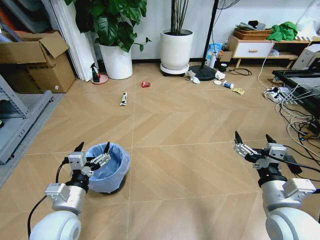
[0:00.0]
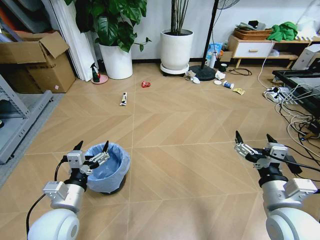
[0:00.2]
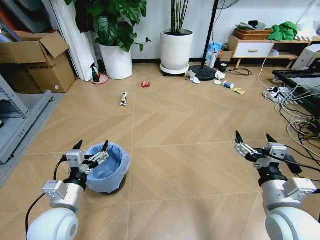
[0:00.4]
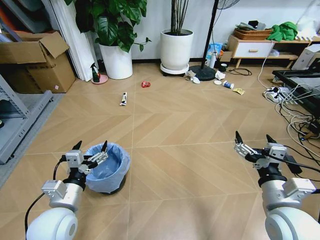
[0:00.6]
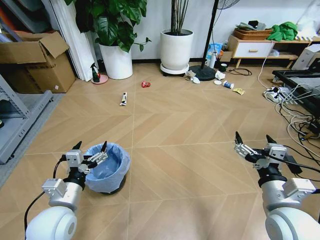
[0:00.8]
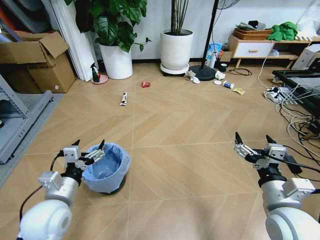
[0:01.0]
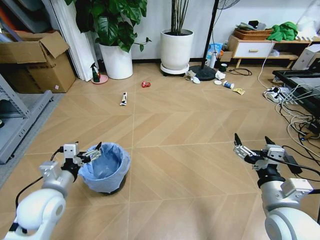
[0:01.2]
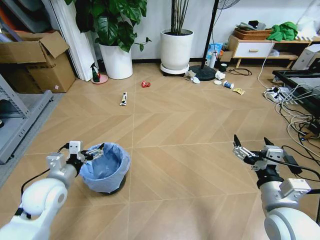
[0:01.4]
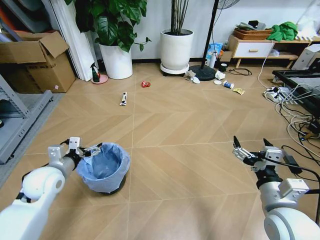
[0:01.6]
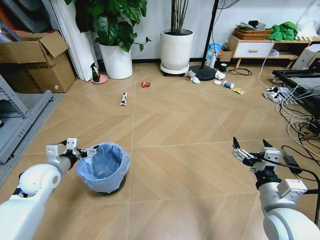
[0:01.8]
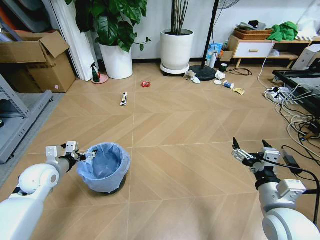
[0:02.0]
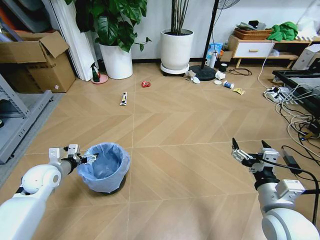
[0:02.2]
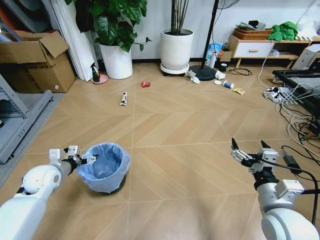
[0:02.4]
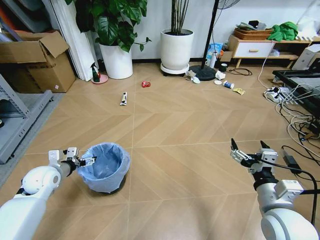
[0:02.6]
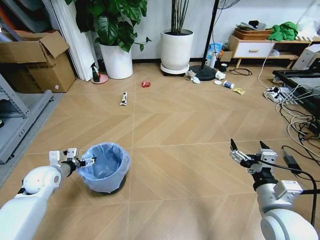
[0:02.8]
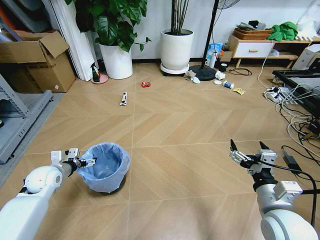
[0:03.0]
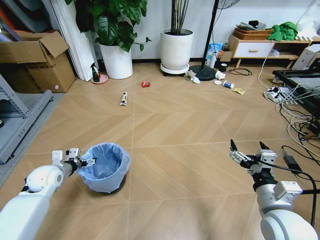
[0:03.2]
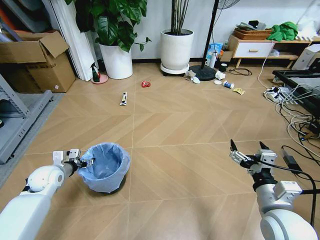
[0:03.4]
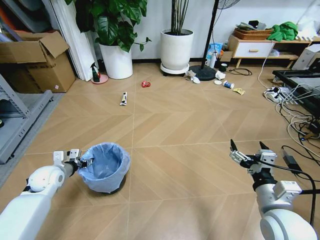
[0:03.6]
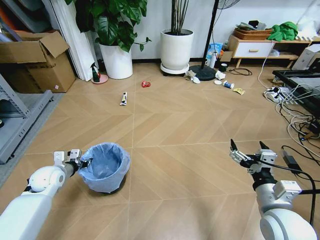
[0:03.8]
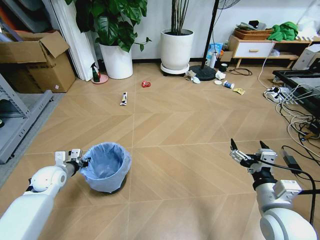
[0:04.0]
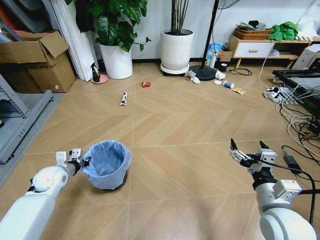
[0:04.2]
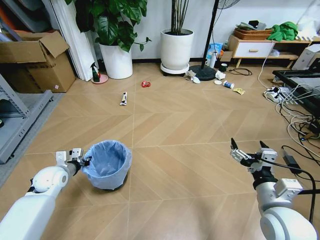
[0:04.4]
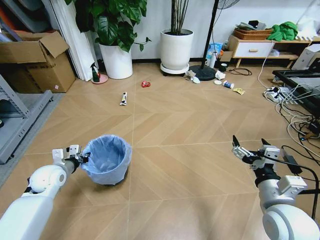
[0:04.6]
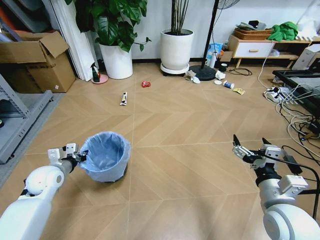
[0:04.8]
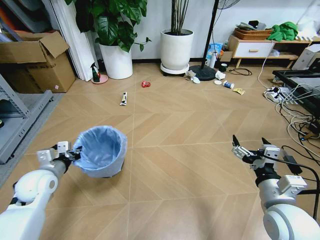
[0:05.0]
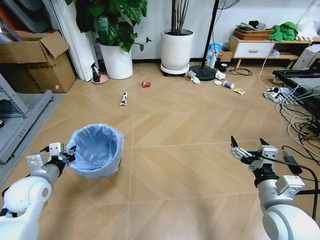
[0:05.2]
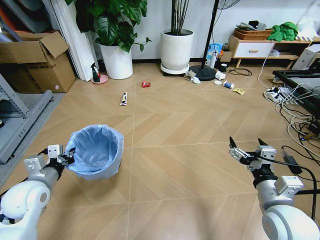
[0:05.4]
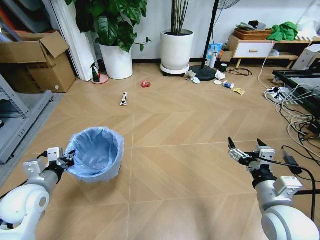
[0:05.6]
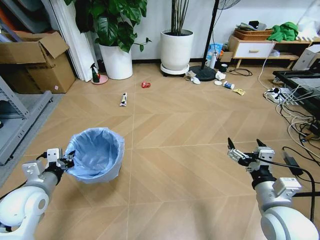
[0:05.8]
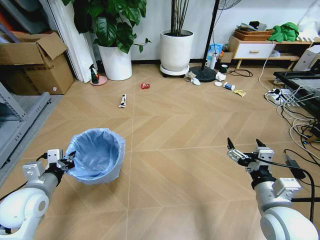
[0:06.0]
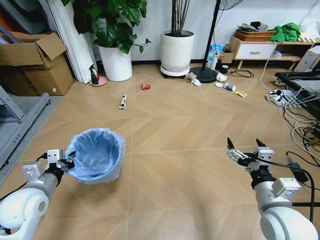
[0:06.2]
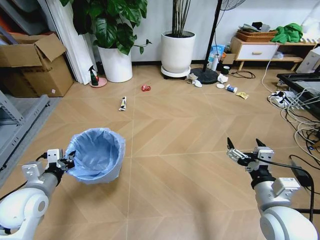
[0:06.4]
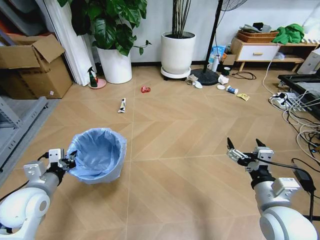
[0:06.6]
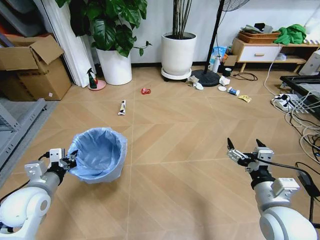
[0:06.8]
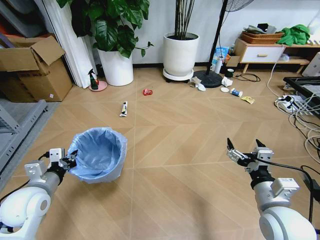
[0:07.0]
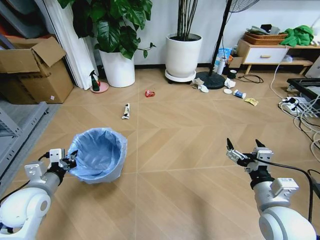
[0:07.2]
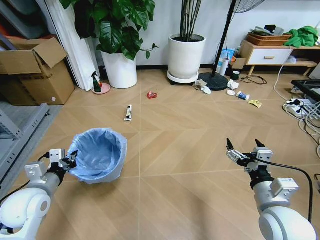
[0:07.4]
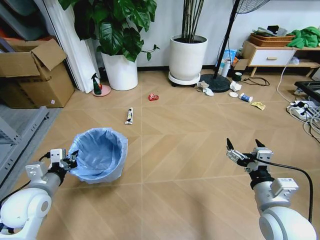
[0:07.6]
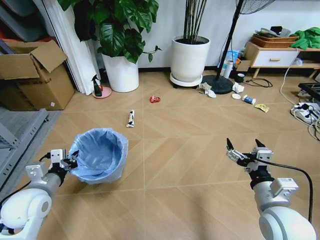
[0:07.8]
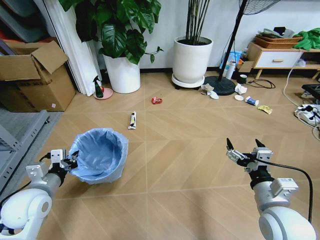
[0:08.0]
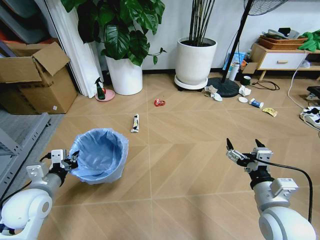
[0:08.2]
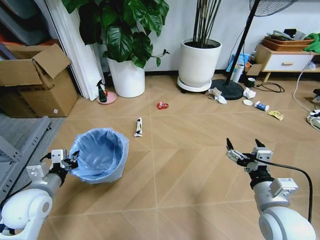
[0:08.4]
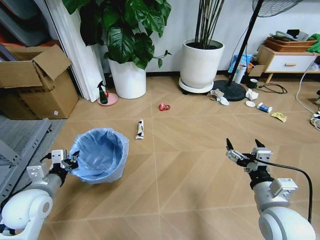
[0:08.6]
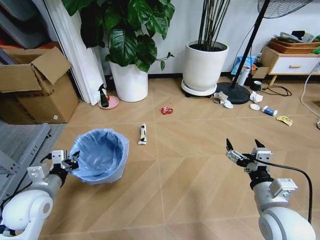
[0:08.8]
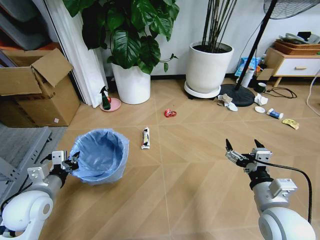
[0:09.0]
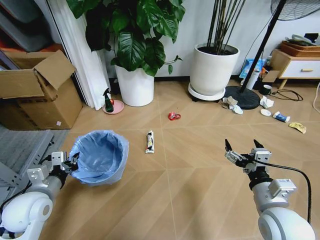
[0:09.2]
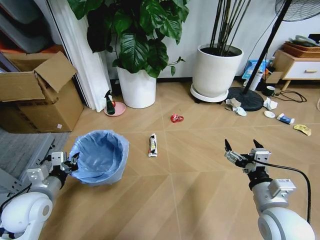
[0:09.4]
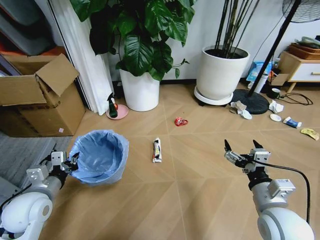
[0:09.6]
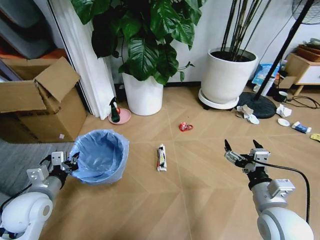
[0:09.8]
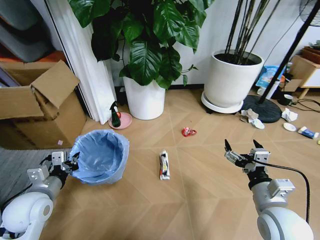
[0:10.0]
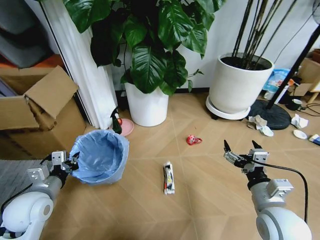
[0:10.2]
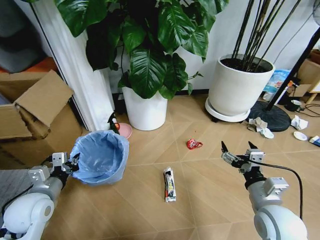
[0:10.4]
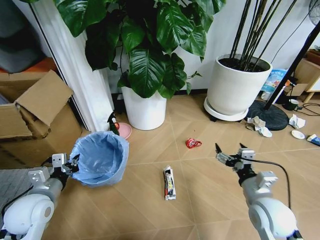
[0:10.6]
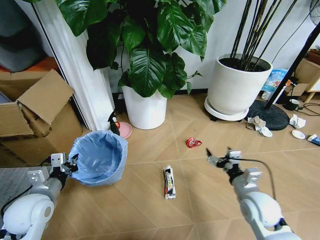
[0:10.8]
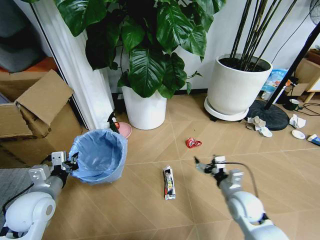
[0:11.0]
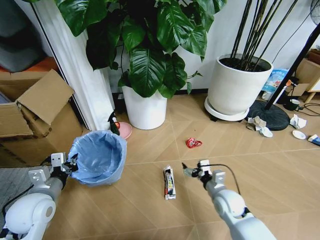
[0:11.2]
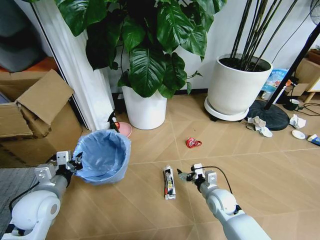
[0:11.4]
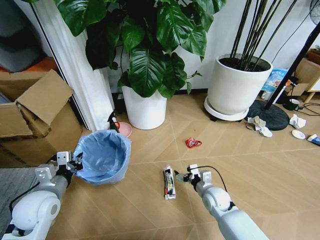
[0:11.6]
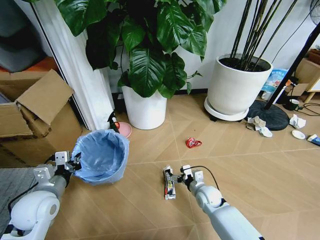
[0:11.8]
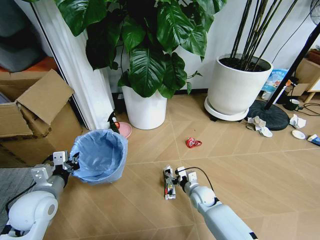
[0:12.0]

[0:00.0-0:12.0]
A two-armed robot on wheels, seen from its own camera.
Task of the whole recording: Pick up the trash bin and place the garbage on the floor into it.
0:01.6 to 0:03.0: The left gripper is displaced to the left, downward and forward by approximately 10 cm.
0:03.0 to 0:04.4: The left gripper closes.
0:04.4 to 0:06.0: The left gripper heads backward and upward, covering roughly 15 cm.
0:10.4 to 0:12.0: The right gripper shifts roughly 30 cm downward, forward and to the left.

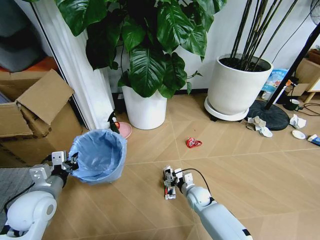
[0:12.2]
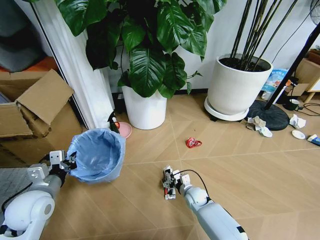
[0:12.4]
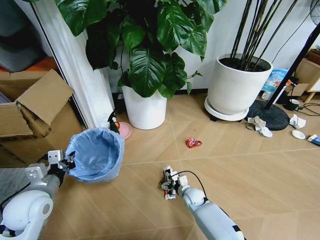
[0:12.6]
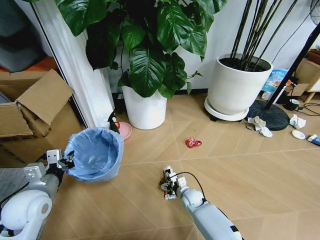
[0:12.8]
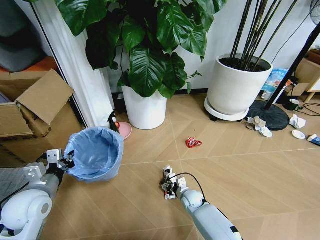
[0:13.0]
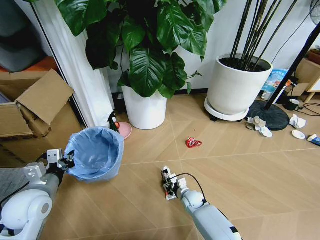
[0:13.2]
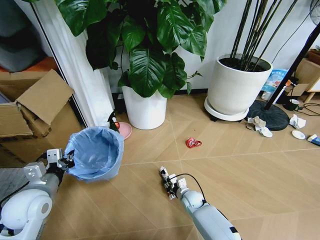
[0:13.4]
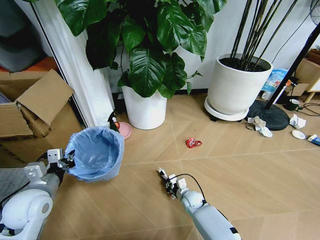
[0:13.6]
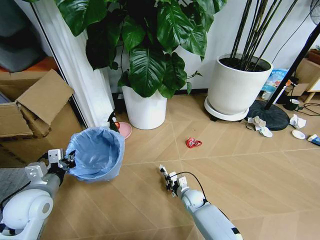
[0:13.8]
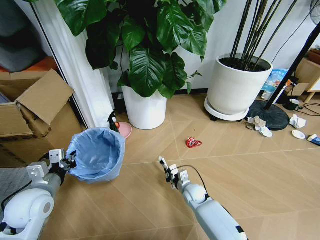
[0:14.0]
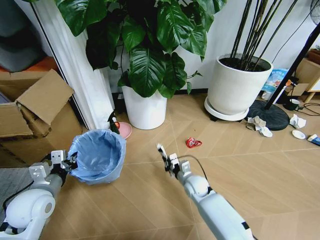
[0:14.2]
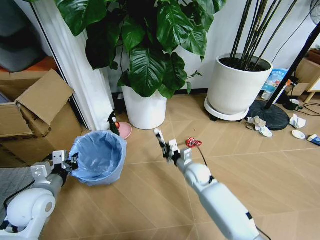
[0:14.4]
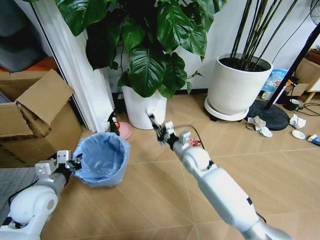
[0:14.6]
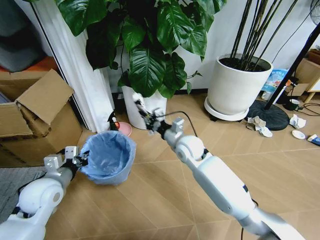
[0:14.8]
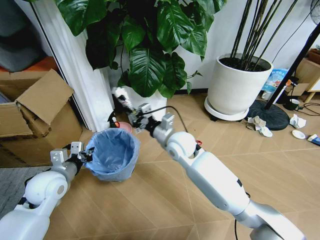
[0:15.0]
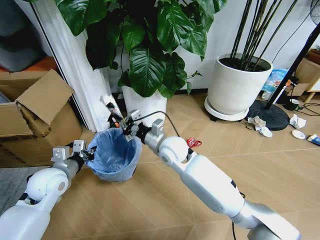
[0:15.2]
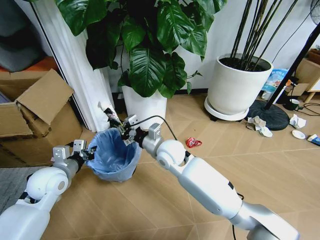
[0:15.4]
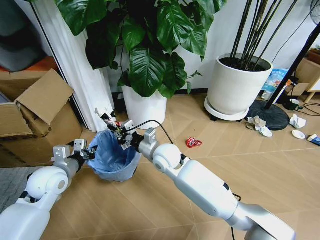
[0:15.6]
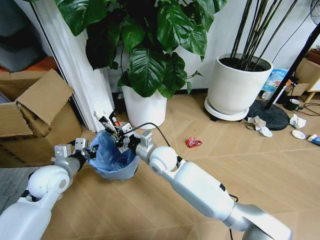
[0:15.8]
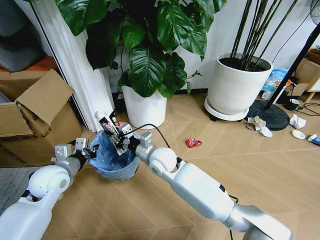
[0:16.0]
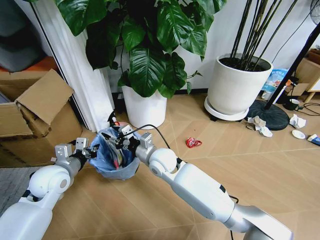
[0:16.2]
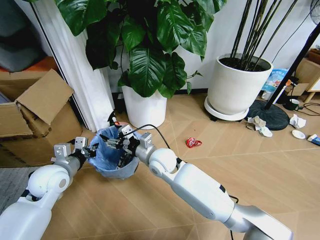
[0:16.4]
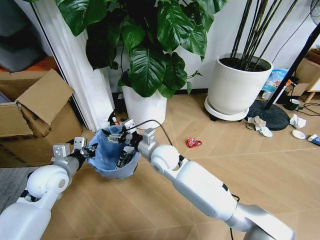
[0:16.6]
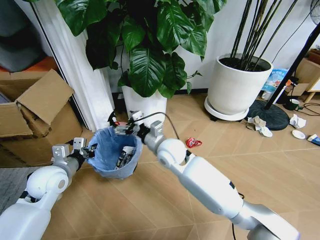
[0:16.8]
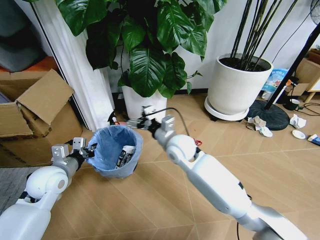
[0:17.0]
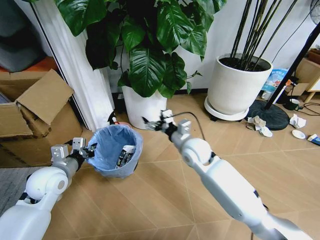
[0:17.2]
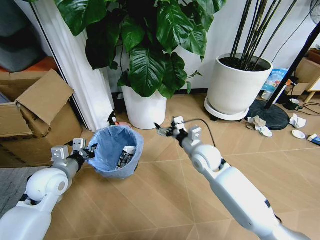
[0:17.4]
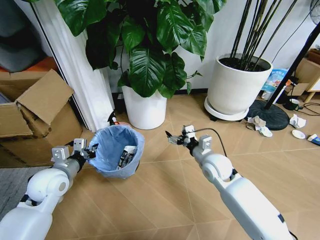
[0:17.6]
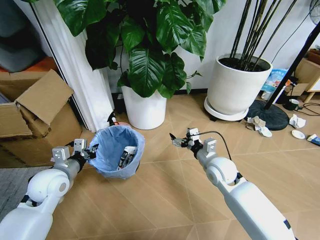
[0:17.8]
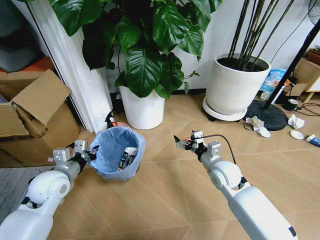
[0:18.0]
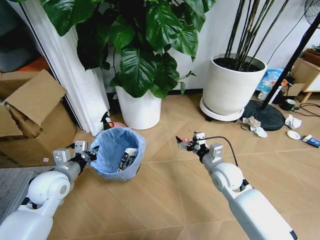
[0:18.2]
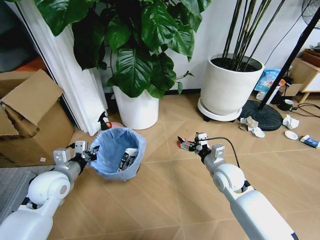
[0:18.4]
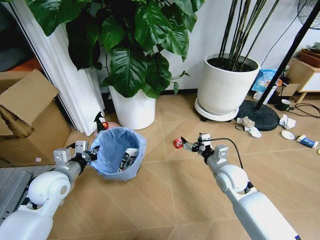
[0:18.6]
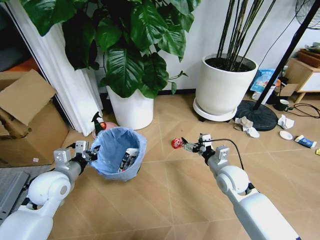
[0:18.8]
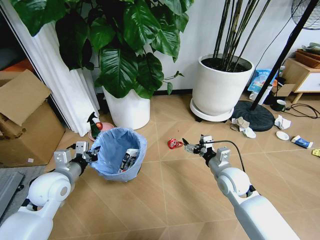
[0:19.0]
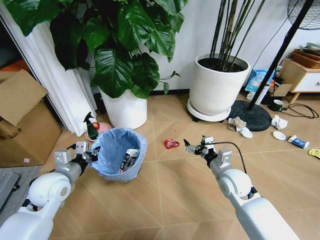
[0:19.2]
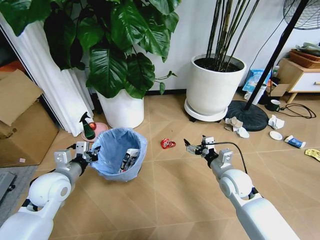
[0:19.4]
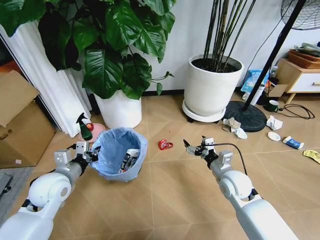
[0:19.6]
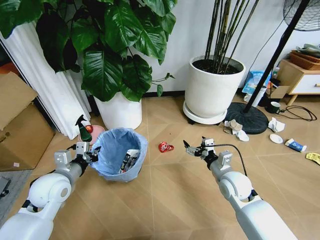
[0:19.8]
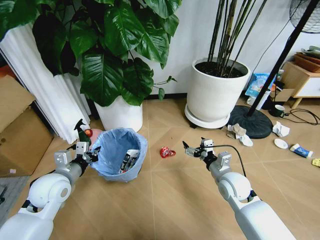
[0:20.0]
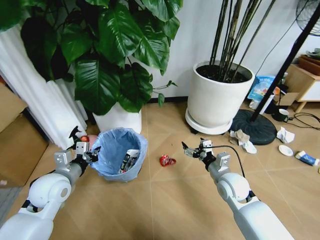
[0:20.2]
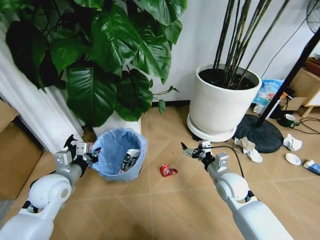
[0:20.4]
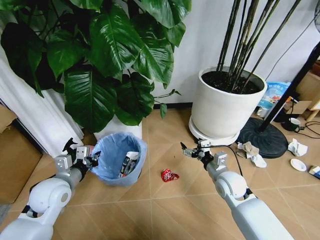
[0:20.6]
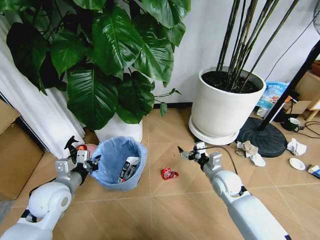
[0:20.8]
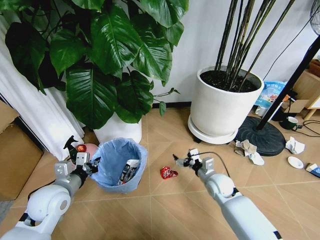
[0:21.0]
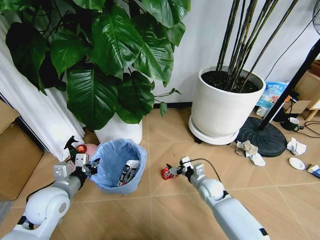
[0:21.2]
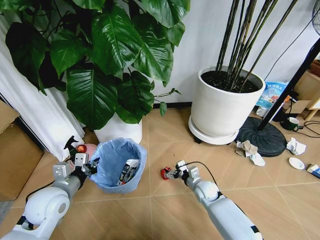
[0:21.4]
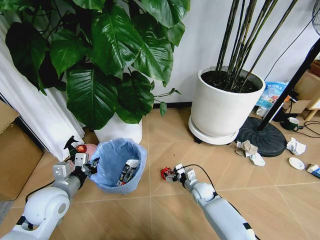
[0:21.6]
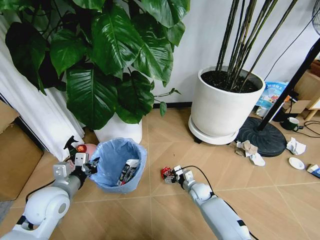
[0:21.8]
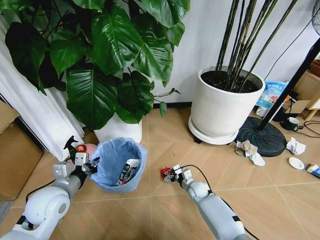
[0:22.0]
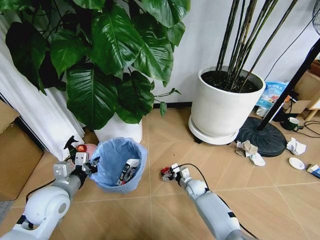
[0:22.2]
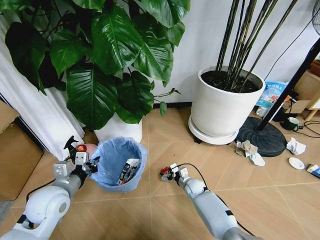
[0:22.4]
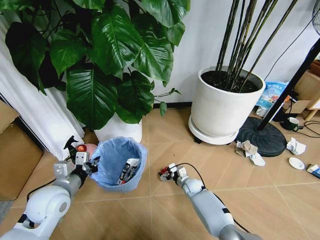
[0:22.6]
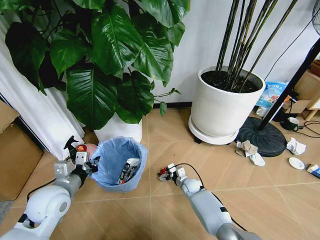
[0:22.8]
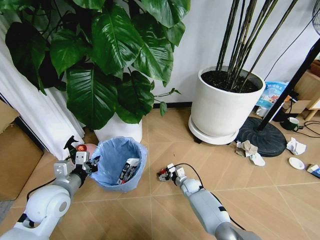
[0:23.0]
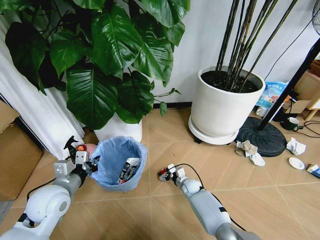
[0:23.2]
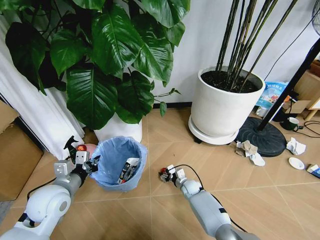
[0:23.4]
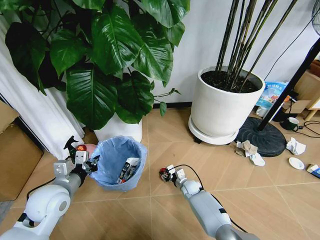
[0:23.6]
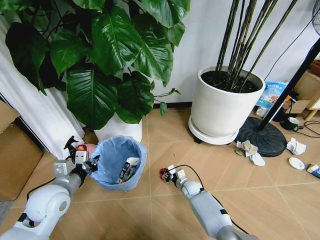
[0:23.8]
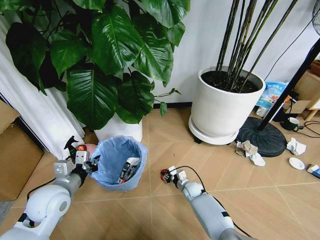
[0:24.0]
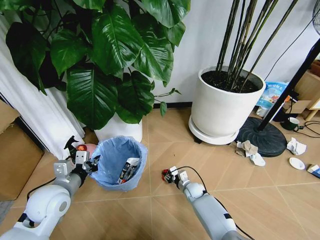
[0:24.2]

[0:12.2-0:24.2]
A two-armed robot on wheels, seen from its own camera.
Task of the whole recording: Pick up the trash bin and place the garbage on the floor into it.
0:12.2 to 0:13.8: The right gripper closes its fingers.
0:13.8 to 0:15.2: The left gripper shifts about 5 cm forward, while the right gripper goes approximately 30 cm upward.
0:15.2 to 0:16.6: The right gripper opens up.
0:16.6 to 0:18.2: The right gripper is displaced to the right by some 20 cm.
0:19.8 to 0:21.2: The right gripper is displaced downward by about 15 cm.
0:21.2 to 0:22.6: The right gripper moves downward and forward, about 10 cm.
0:22.6 to 0:24.2: The right gripper closes.
